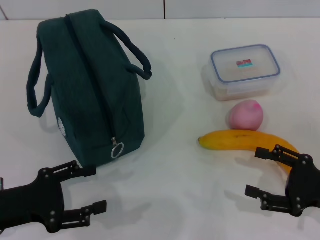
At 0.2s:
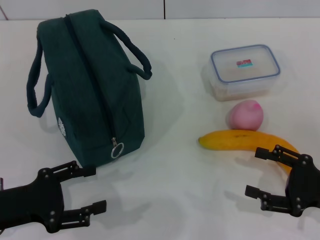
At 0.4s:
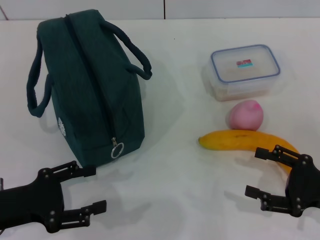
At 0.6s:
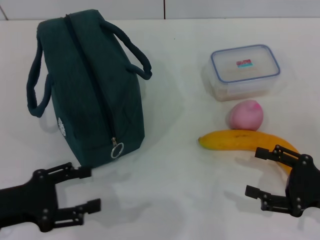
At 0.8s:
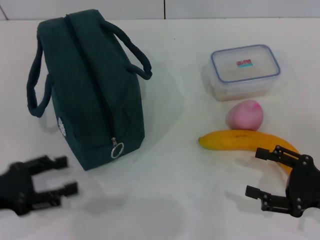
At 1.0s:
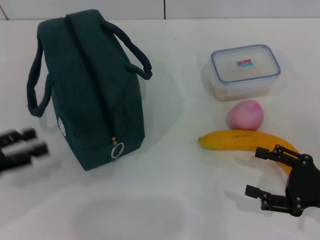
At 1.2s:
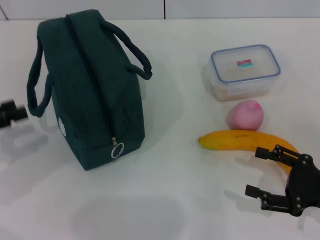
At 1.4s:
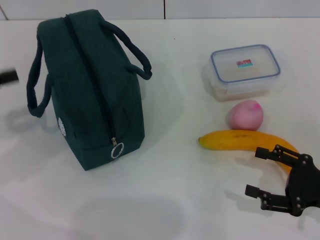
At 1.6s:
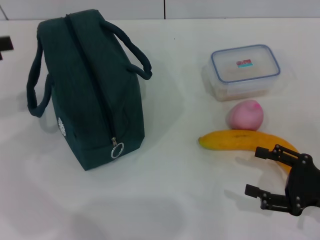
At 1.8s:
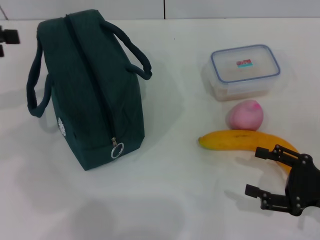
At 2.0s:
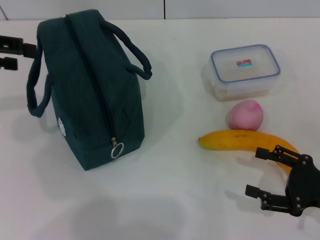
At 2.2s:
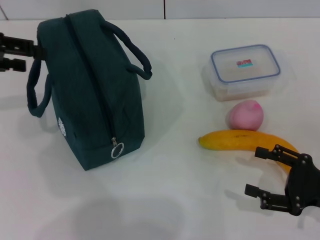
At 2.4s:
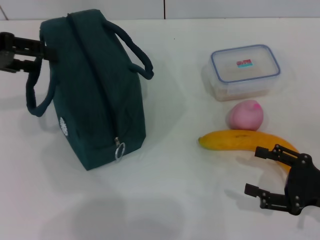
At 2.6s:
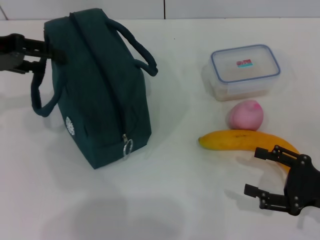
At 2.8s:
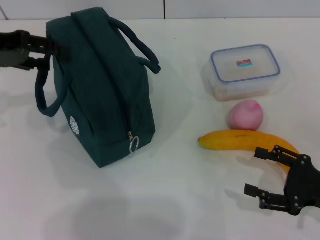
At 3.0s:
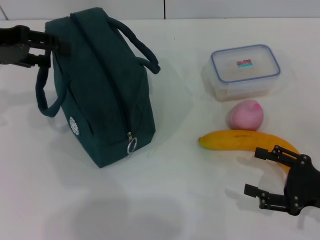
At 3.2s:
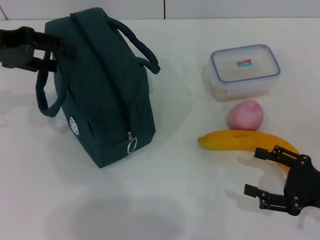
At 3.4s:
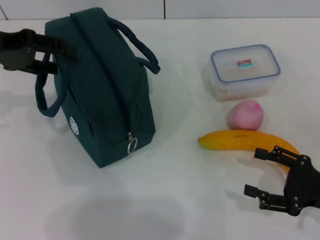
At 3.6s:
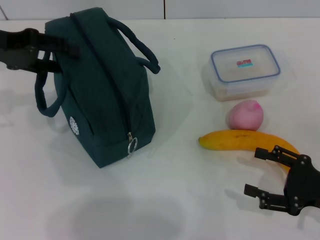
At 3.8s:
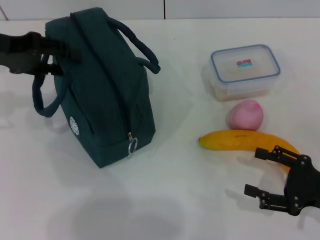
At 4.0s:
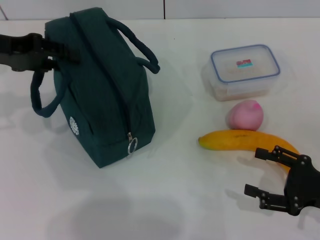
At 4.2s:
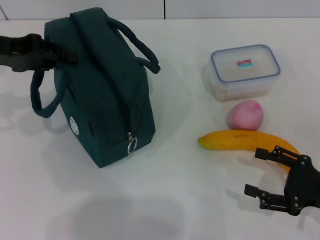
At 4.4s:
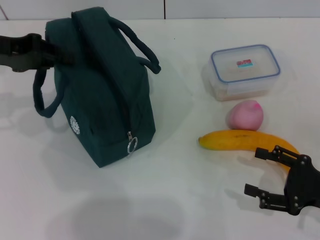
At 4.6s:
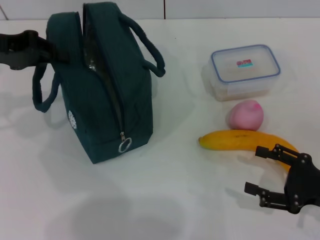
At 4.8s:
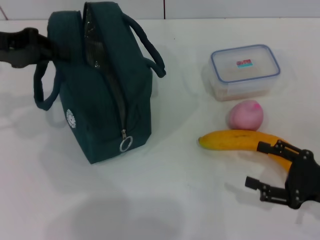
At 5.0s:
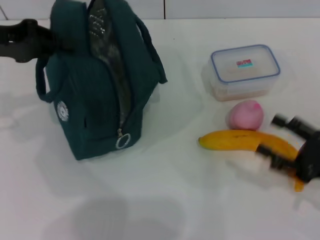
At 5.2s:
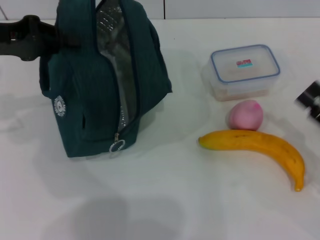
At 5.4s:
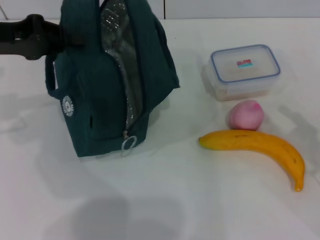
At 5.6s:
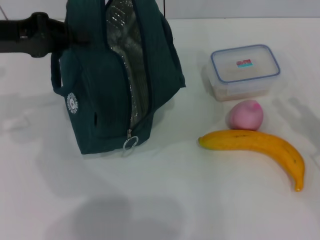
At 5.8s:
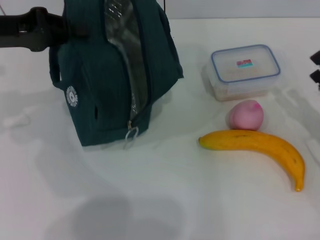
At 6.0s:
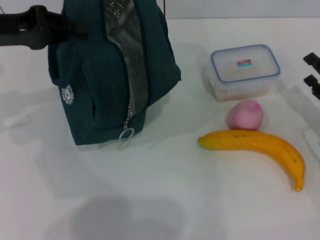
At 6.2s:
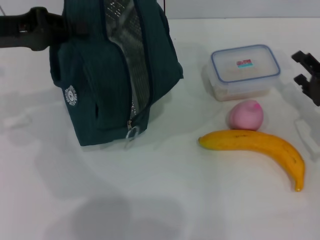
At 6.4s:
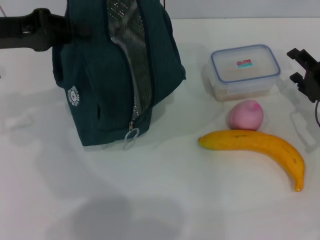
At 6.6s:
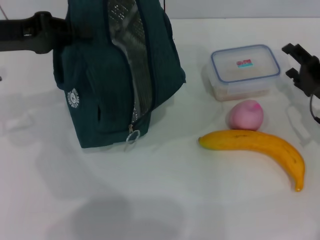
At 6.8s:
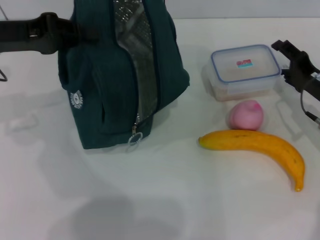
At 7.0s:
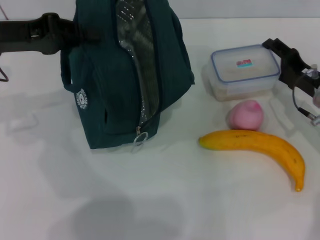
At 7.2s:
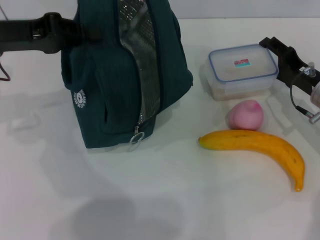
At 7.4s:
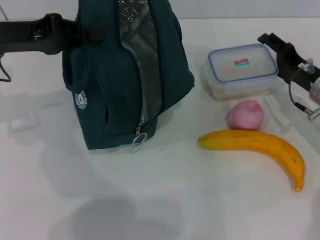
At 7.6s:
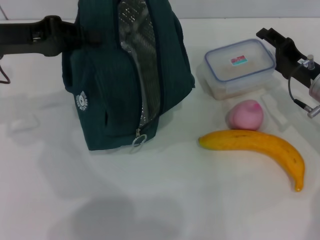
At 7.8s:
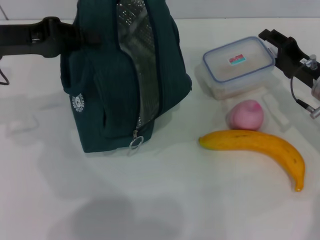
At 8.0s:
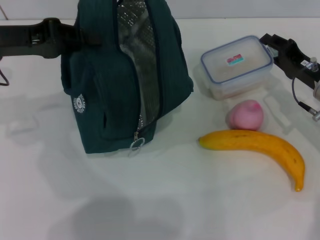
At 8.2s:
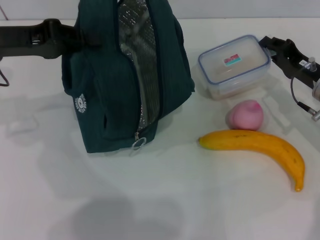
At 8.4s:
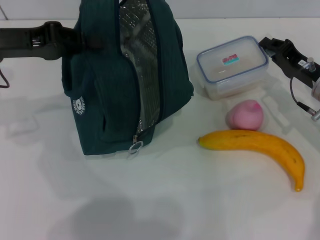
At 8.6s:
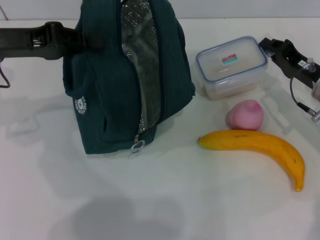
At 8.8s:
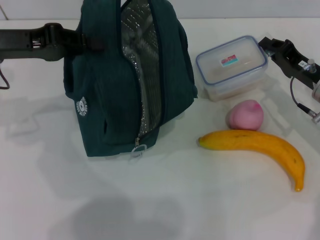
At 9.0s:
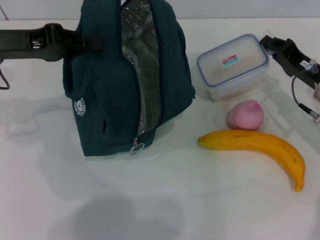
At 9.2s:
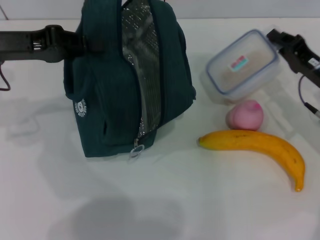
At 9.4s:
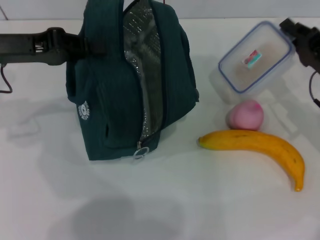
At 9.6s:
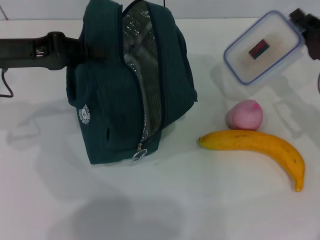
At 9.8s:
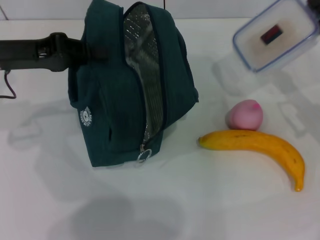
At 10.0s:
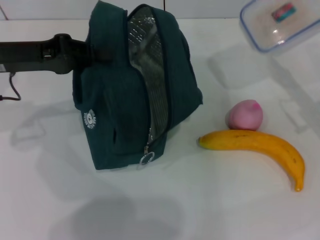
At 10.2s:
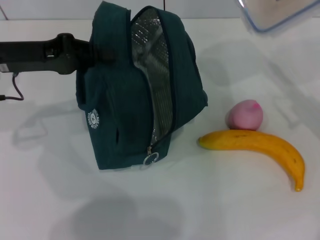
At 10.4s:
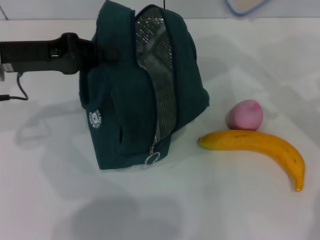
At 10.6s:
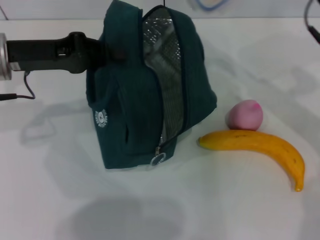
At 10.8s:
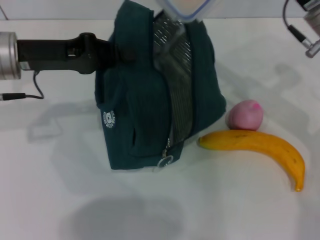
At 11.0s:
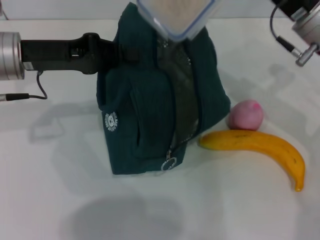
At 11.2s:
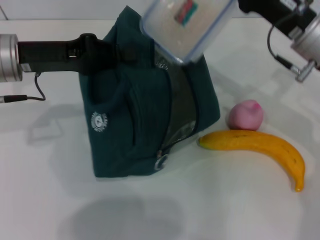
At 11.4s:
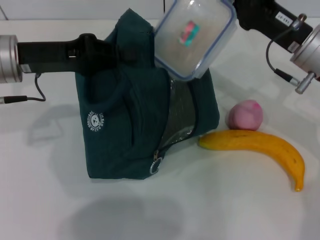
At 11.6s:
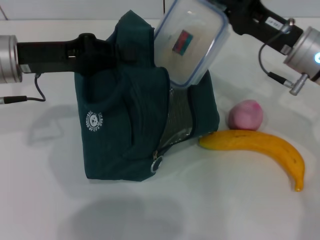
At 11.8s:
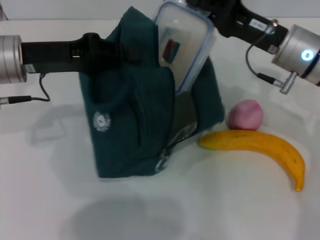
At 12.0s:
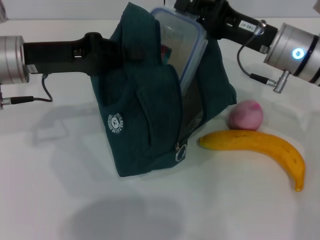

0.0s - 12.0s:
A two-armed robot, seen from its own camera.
Step, 0.0s - 5.8s: Hold the lunch bag with your left hand.
Step, 6.0s - 8.2s: Pick up the lunch box with your right hand.
0.0s - 1.6s: The left gripper goes approximately 20 cm upward, forward and to the left.
1.6s - 3.0s: The left gripper shifts about 10 cm forward and to the right.
3.0s - 4.4s: The left gripper closes up.
4.4s - 6.0s: The left gripper closes. Meanwhile the right gripper shifts about 10 cm forward.
6.0s - 7.6s: The right gripper moves forward and to the left, about 10 cm.
7.6s - 9.0s: The right gripper closes its fingers.
9.0s - 10.4s: The right gripper is displaced upward by approximately 10 cm.
10.4s - 12.0s: The right gripper travels to the left by some 10 cm.

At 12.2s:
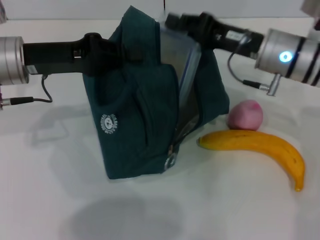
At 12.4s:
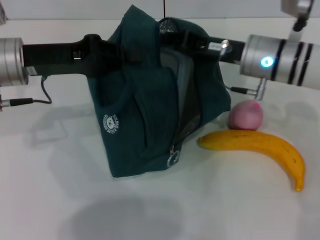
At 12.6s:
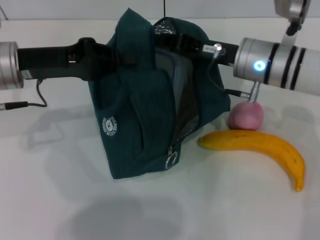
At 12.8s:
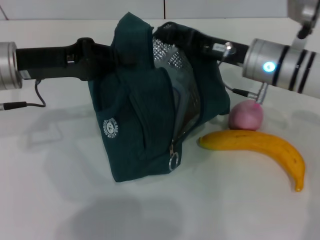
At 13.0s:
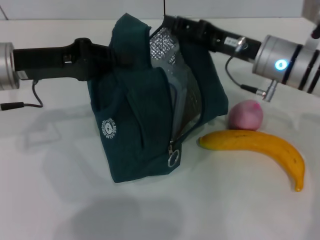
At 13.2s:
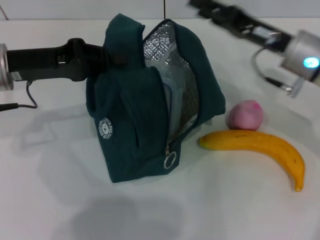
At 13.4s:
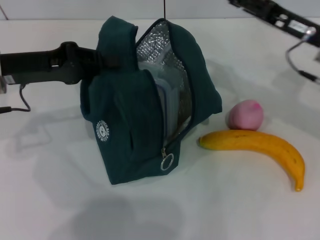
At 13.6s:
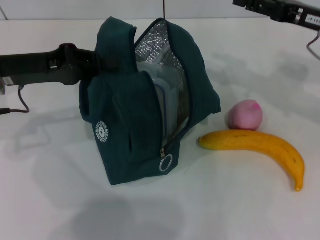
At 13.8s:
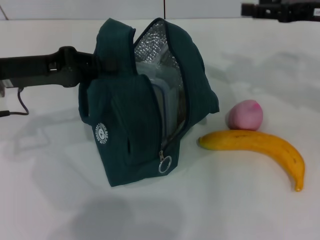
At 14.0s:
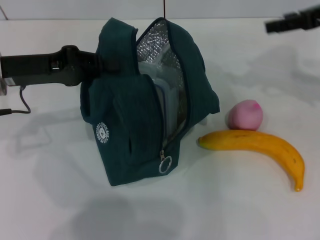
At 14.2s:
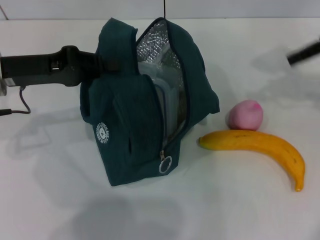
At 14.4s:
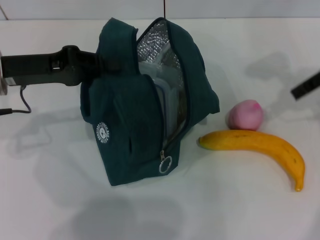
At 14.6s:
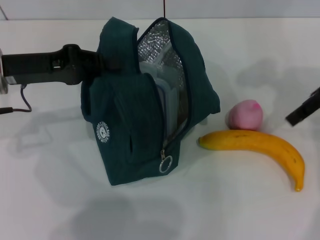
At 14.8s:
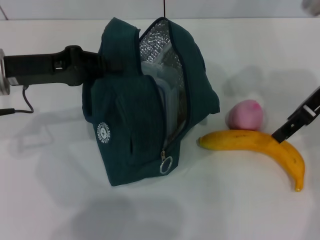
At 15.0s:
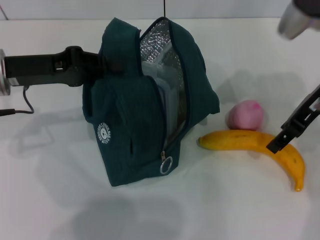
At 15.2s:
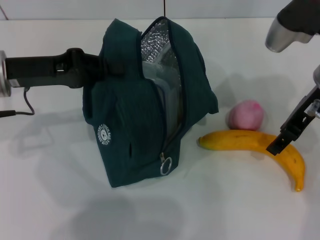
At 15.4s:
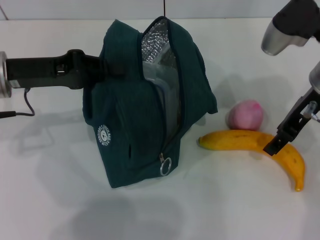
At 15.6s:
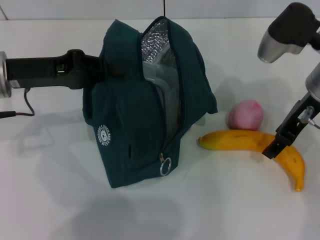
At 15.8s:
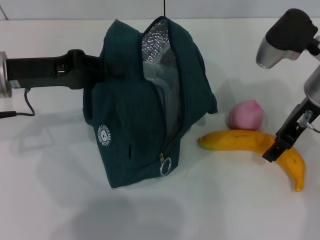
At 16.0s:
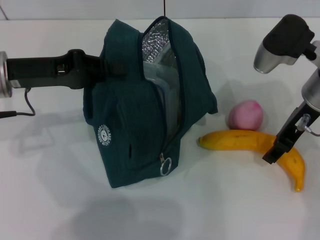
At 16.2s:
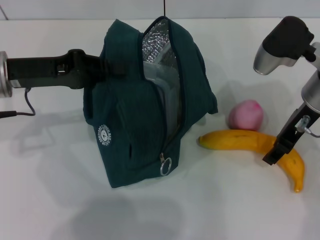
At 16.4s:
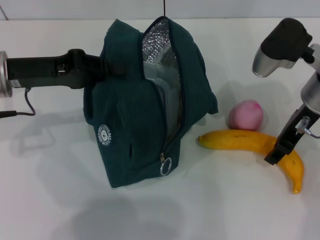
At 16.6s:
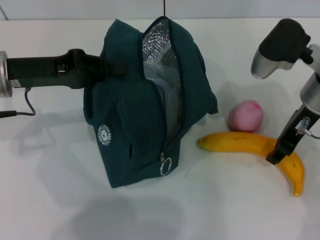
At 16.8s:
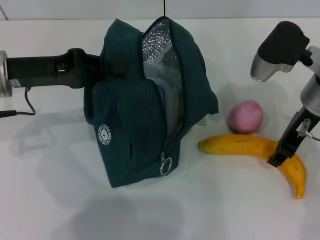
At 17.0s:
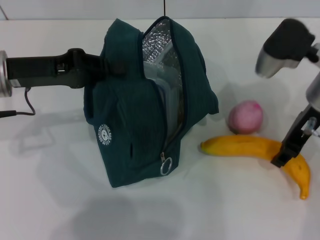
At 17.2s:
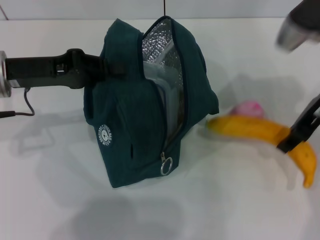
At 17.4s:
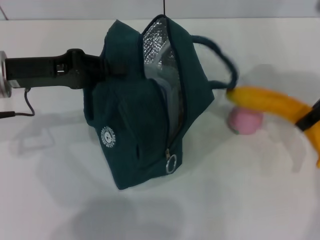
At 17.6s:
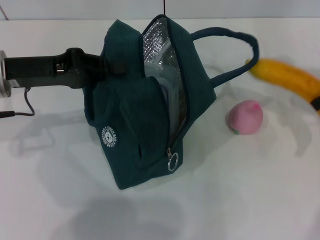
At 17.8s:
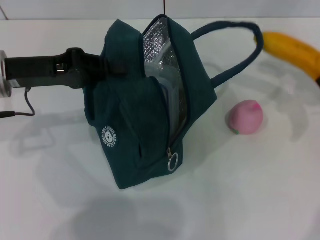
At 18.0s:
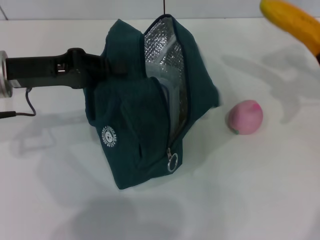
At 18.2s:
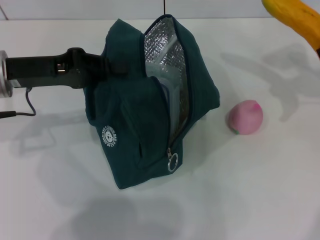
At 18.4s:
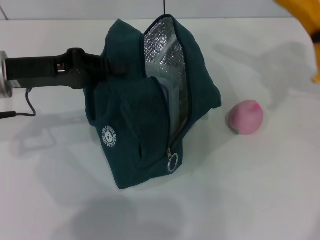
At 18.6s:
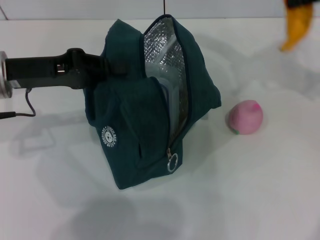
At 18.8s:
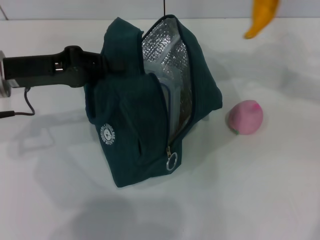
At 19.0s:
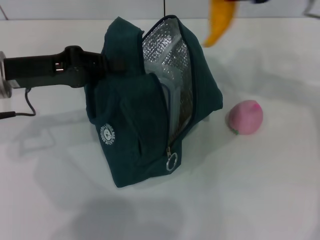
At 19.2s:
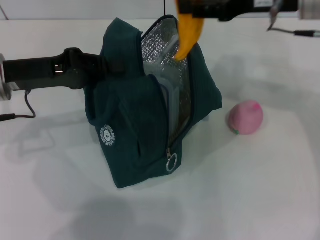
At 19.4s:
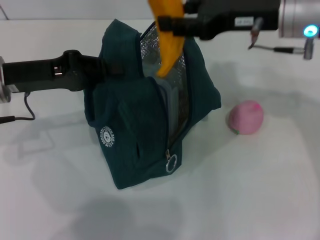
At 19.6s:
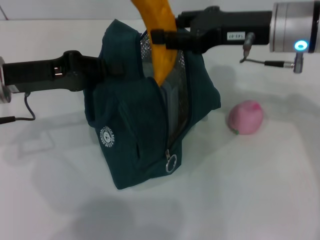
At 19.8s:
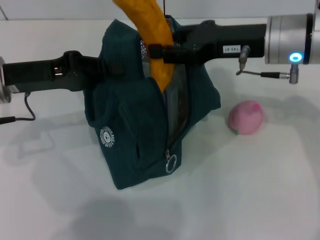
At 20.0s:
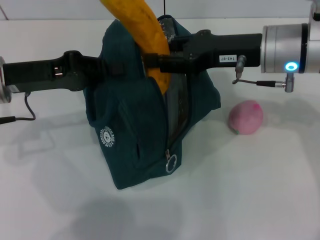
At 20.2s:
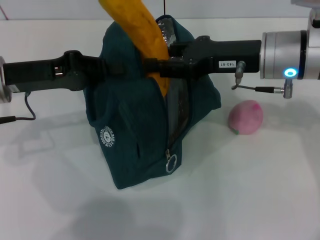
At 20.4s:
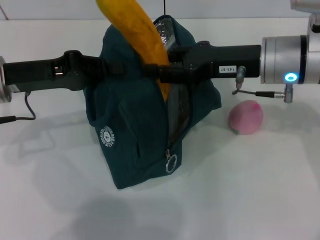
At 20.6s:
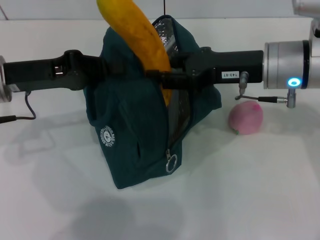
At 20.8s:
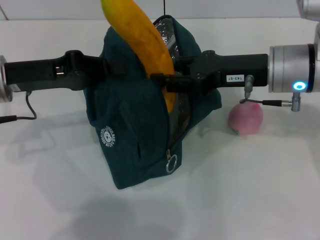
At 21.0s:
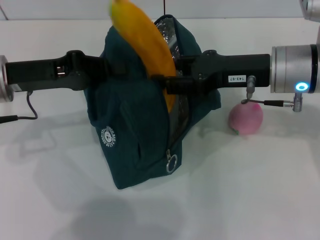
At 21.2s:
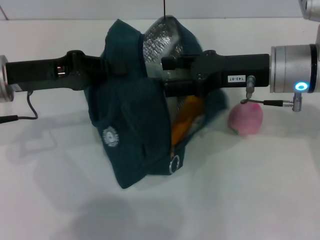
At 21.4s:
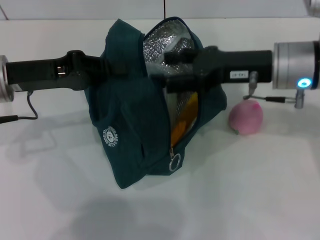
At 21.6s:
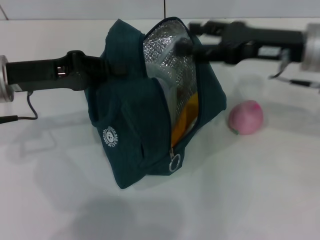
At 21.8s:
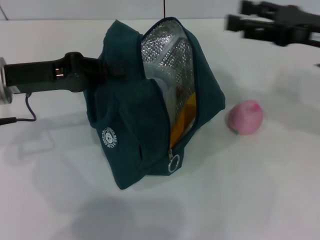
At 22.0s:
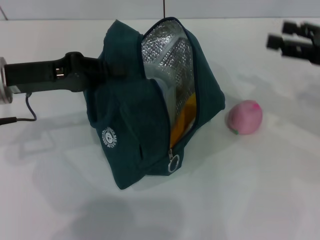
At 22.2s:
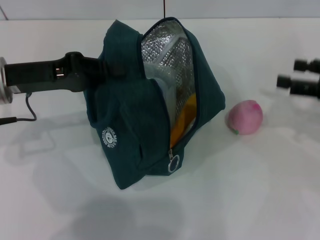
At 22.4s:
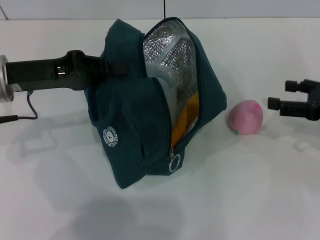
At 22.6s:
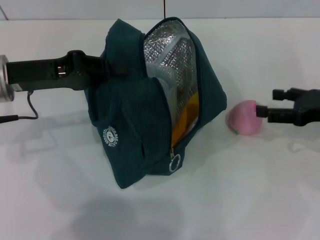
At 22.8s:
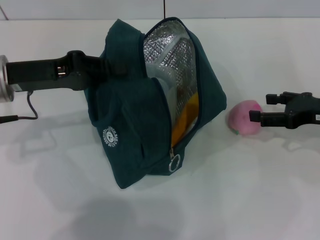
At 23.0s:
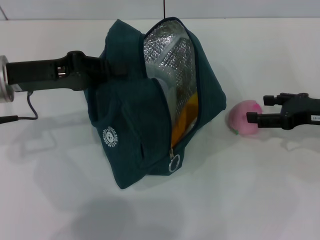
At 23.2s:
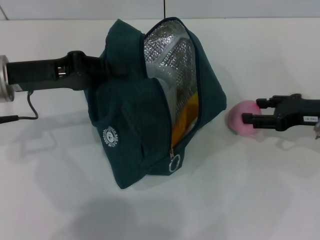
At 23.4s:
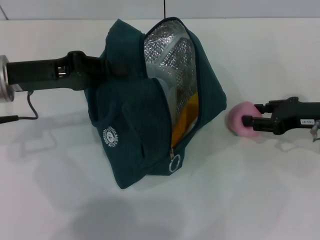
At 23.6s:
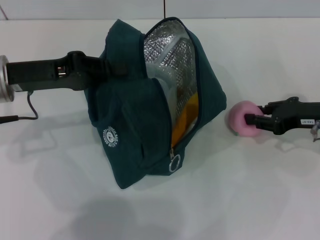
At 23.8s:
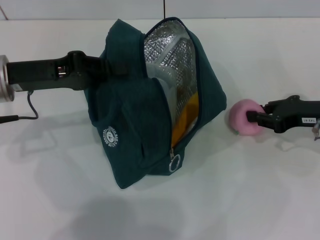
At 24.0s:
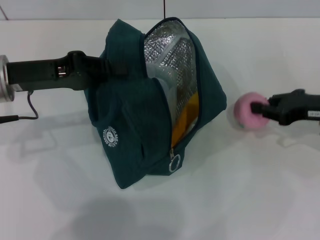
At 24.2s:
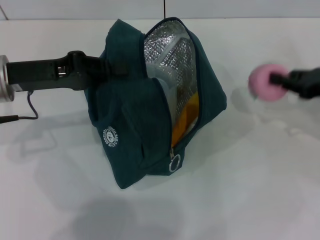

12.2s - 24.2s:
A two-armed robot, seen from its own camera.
Step, 12.8s - 16.6s: Take the banana with your right hand.
Step, 16.8s - 21.4s: Put the banana into the lunch bag with your right hand.
Step, 21.6s - 23.4s: Grab the peach with your right hand.
12.2s - 13.8s: The right gripper travels to the right and upward by approximately 15 cm, and opens.
13.8s - 15.2s: The right gripper shifts approximately 5 cm to the left.
15.2s - 16.6s: There are only small adjustments of the grippers.
16.6s - 18.2s: The right gripper moves to the right and upward, about 15 cm.
18.2s - 19.8s: The right gripper is displaced to the left and downward by approximately 20 cm.
19.8s - 21.2s: The grippers stay close to where they were, moving slightly.
21.2s - 22.6s: The right gripper moves to the right and downward, some 15 cm.
22.6s - 24.2s: The right gripper closes its fingers.
